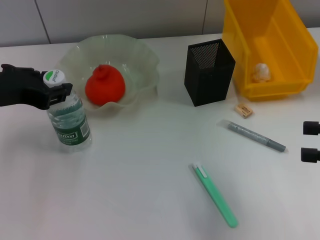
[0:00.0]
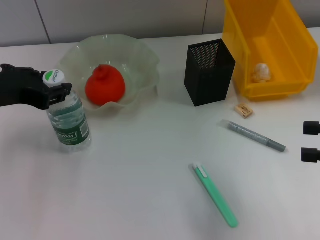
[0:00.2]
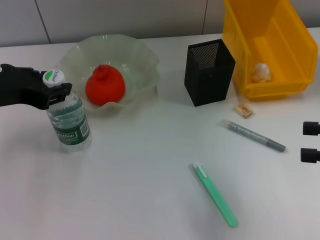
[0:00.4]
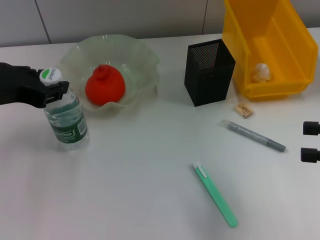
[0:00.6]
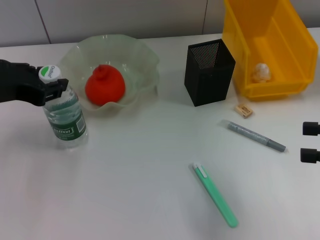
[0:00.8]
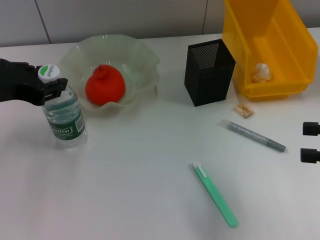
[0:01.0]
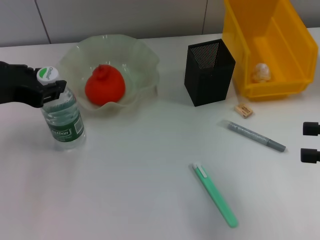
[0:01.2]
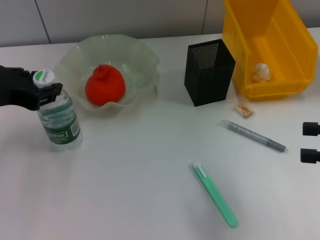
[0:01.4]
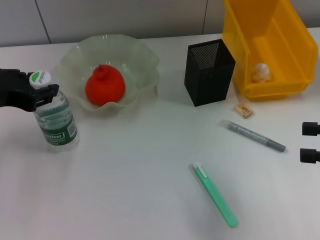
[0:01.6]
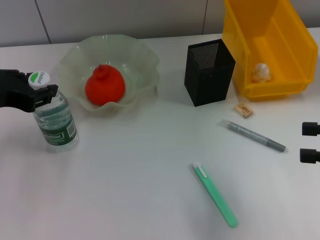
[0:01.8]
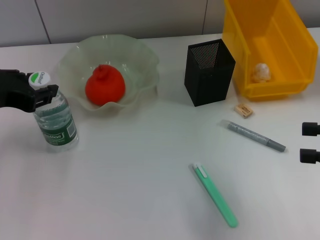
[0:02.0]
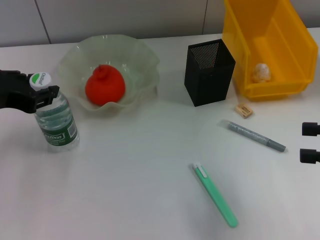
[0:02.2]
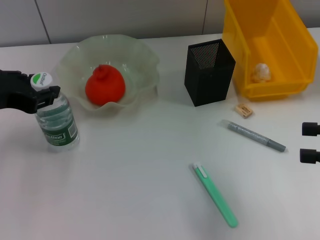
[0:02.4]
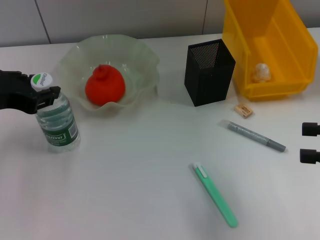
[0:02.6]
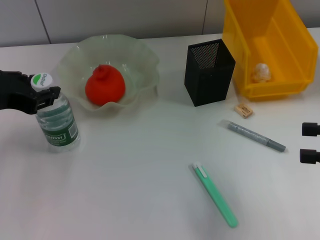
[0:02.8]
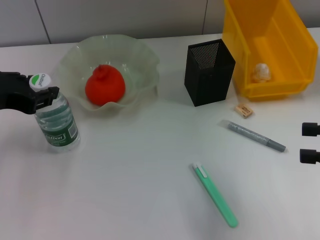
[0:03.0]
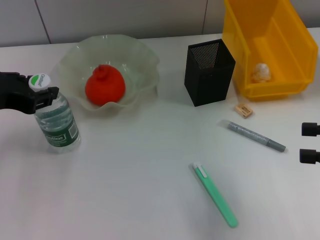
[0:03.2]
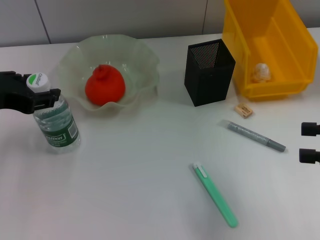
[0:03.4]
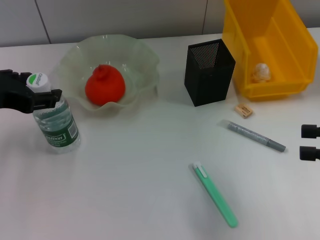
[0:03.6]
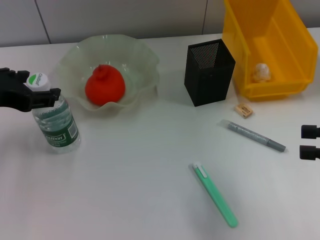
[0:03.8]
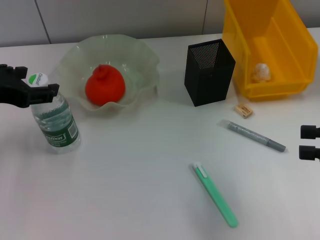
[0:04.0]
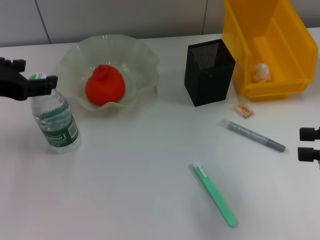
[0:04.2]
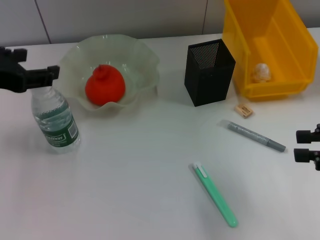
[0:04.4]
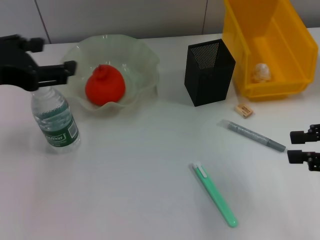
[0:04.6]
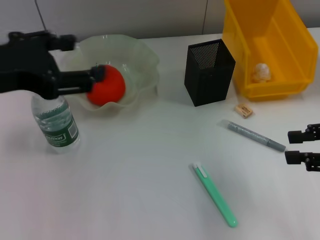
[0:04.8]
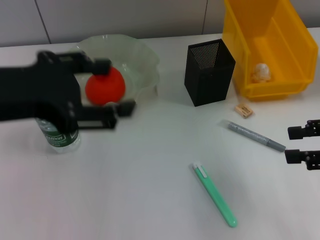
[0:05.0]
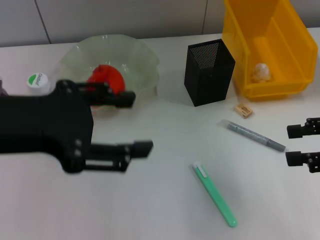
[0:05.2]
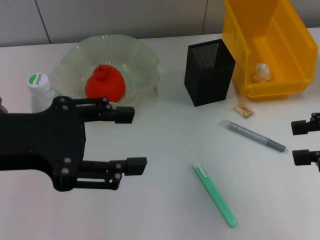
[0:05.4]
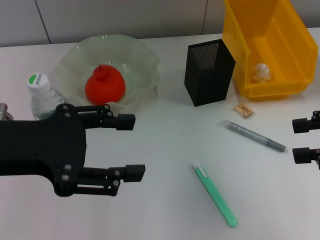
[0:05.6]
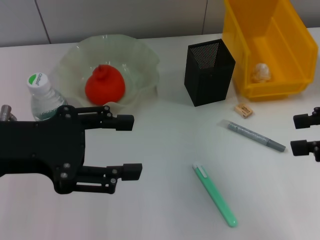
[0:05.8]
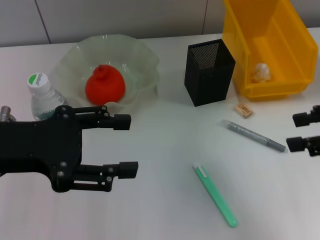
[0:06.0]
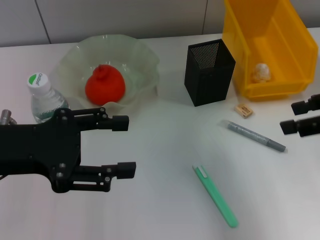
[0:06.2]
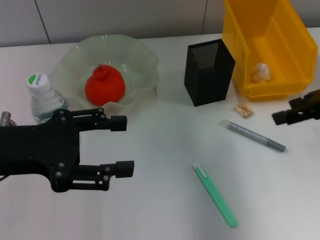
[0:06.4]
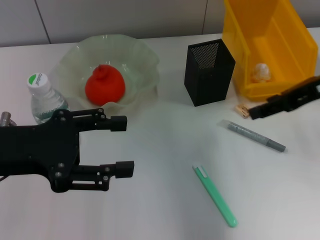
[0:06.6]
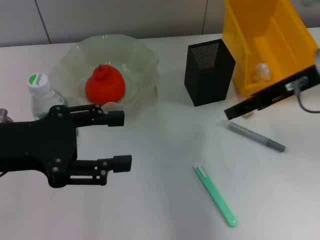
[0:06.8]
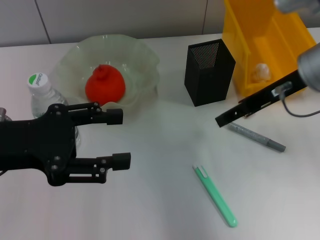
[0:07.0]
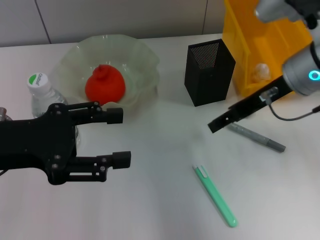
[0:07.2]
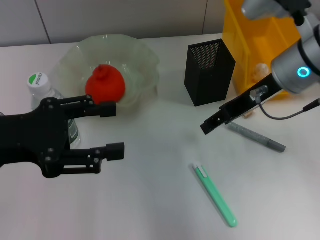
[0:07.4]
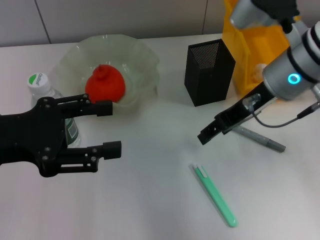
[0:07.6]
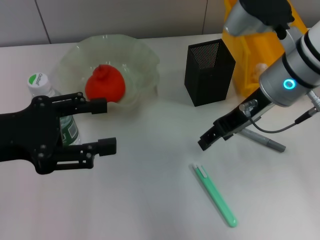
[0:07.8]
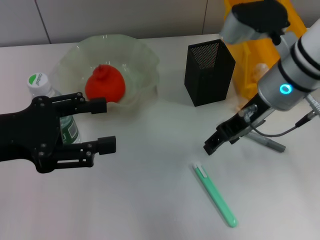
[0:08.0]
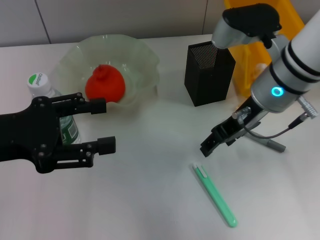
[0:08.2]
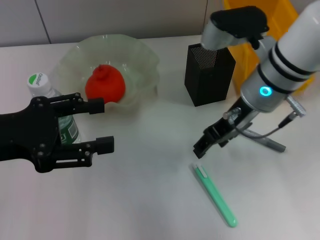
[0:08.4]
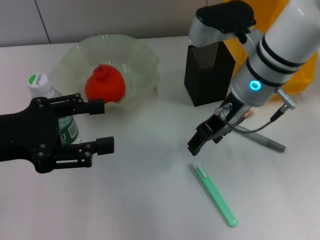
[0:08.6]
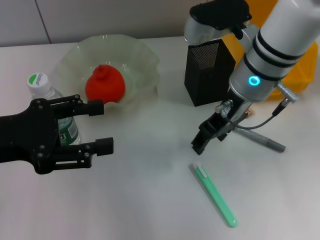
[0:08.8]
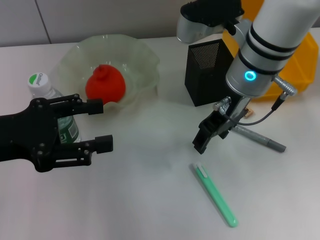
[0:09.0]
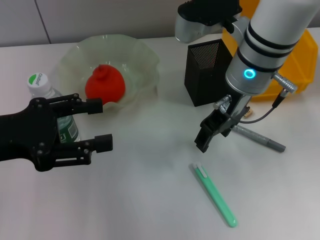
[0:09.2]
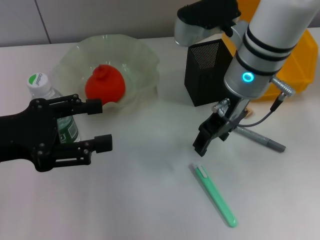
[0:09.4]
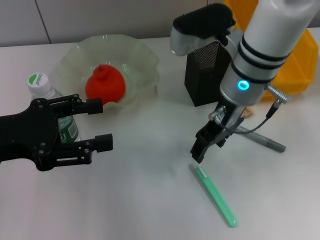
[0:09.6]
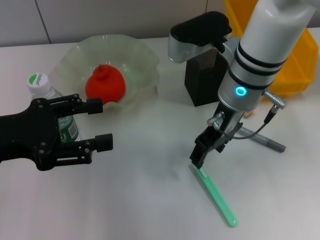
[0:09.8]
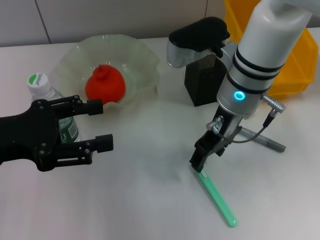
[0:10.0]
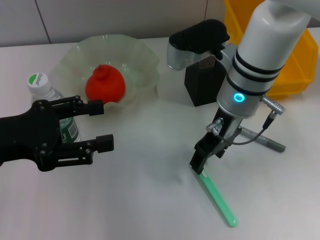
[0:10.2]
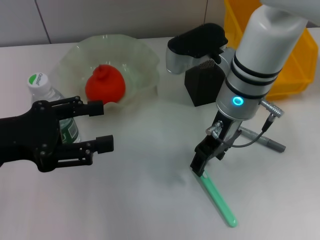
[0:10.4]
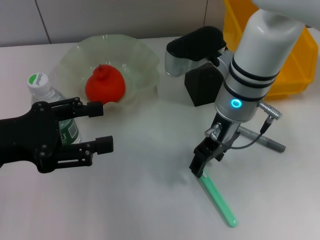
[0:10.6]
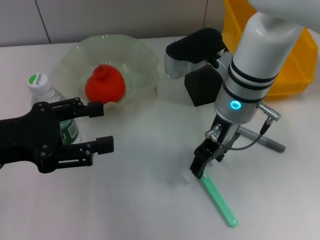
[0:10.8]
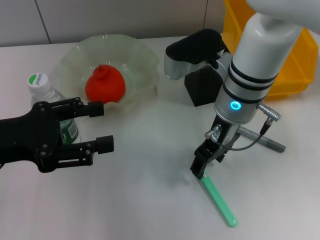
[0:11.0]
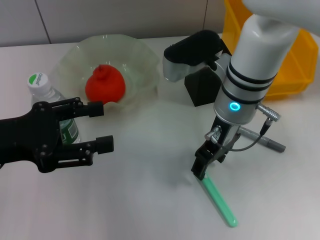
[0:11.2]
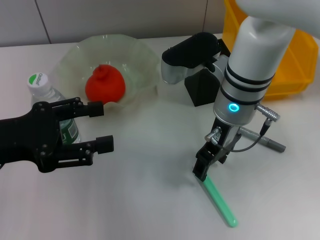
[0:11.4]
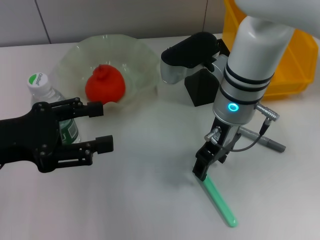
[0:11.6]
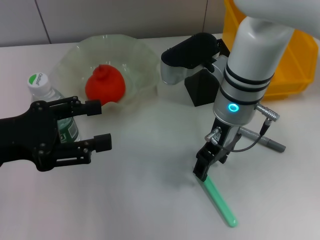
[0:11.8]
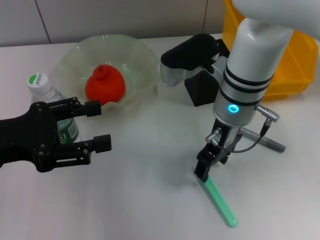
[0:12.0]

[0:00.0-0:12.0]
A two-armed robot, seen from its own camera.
Step, 0:00.0 to 0:03.6: Place the water bottle on the table with the left hand.
0:00.0 to 0:01.6: The two grippers keep their place.
0:01.6 to 0:03.0: Neither gripper changes place.
0:03.0 to 0:04.4: The left gripper opens its fingers.
0:04.4 to 0:06.0: The right gripper travels upward by about 5 cm, and opens its fingers.
0:06.0 to 0:07.6: The right gripper is displaced to the left and forward by some 20 cm.
0:07.6 to 0:09.0: The right gripper heads to the left, covering about 5 cm.
0:09.0 to 0:10.4: The grippers stay close to where they were, moving slightly.
0:10.4 to 0:12.0: The two grippers keep their place.

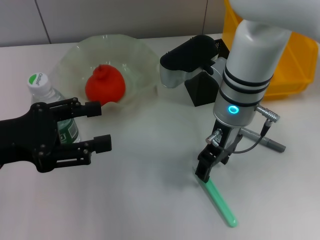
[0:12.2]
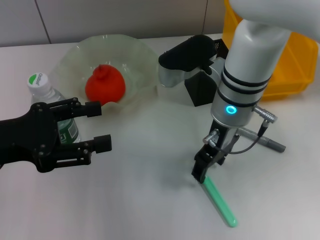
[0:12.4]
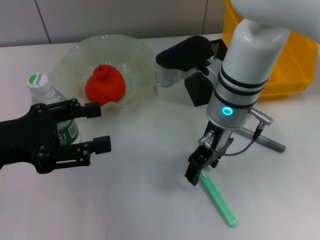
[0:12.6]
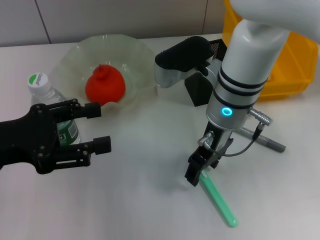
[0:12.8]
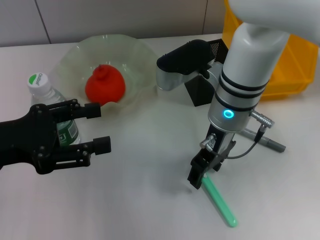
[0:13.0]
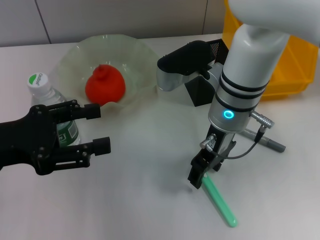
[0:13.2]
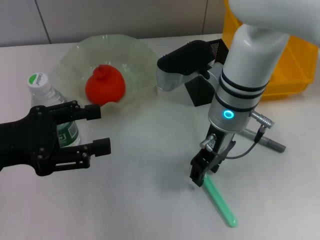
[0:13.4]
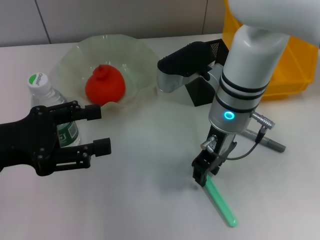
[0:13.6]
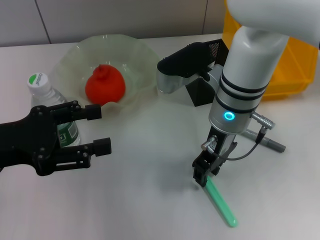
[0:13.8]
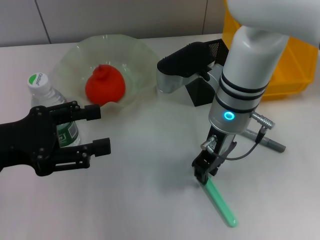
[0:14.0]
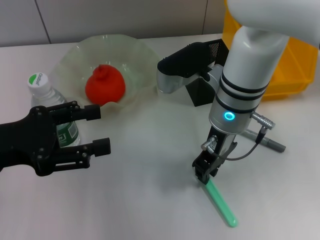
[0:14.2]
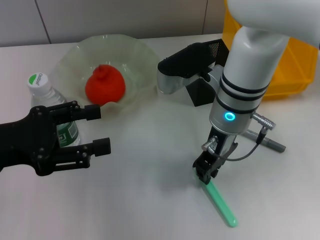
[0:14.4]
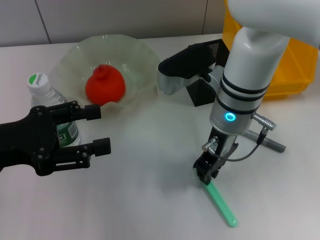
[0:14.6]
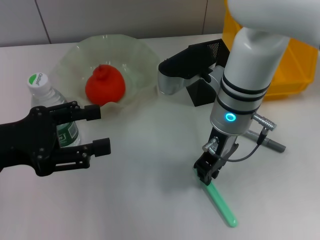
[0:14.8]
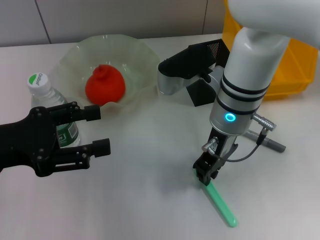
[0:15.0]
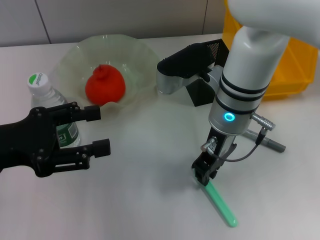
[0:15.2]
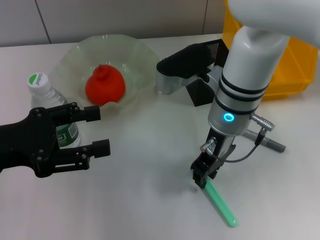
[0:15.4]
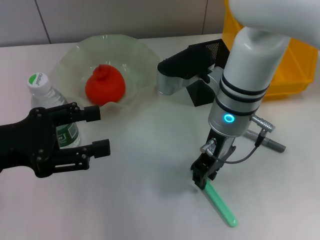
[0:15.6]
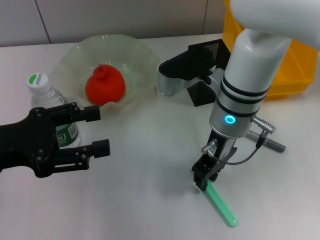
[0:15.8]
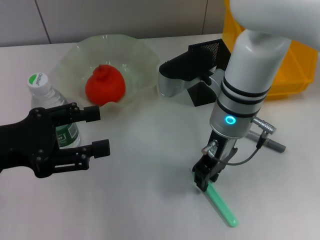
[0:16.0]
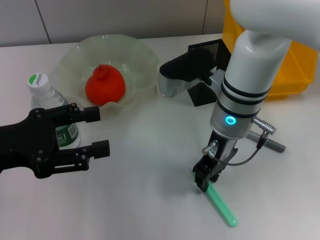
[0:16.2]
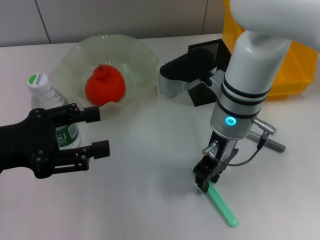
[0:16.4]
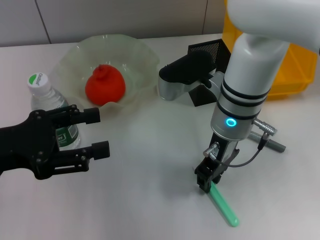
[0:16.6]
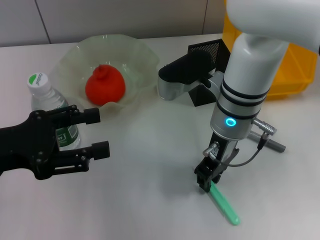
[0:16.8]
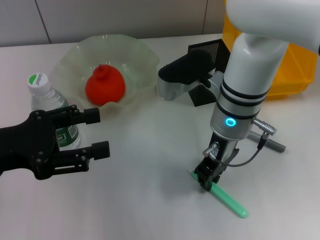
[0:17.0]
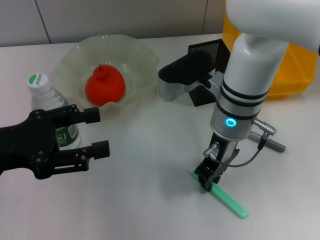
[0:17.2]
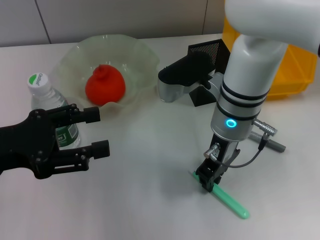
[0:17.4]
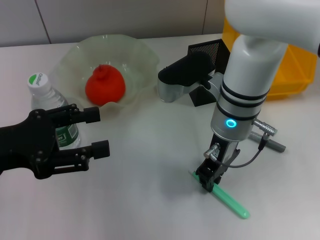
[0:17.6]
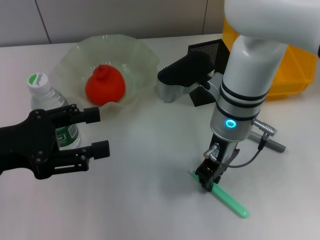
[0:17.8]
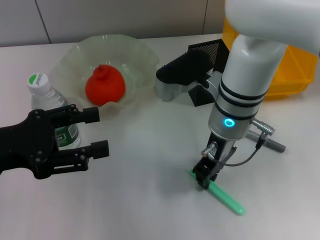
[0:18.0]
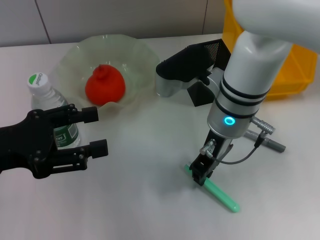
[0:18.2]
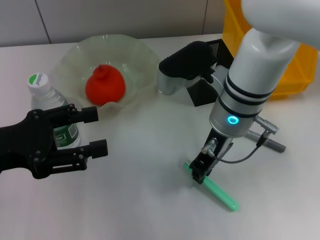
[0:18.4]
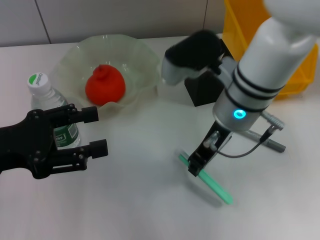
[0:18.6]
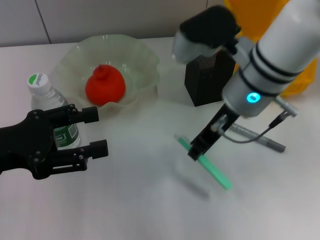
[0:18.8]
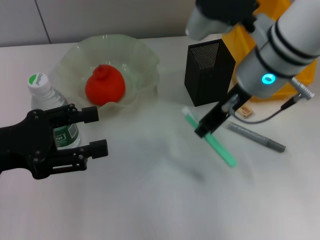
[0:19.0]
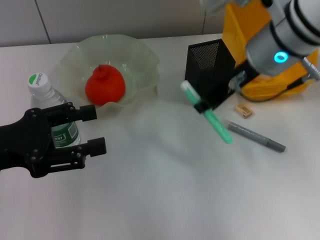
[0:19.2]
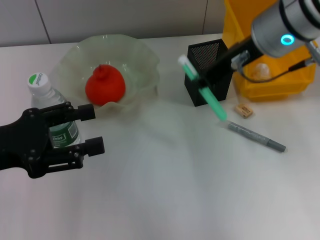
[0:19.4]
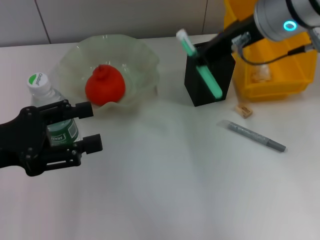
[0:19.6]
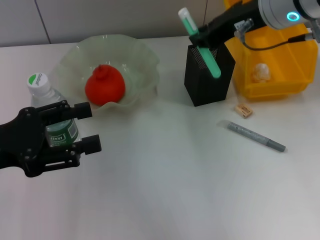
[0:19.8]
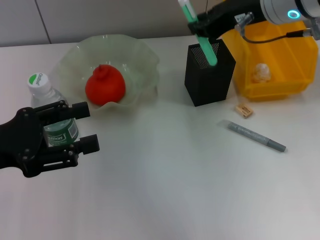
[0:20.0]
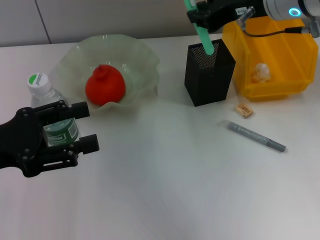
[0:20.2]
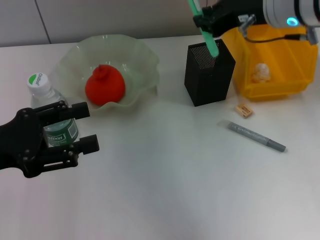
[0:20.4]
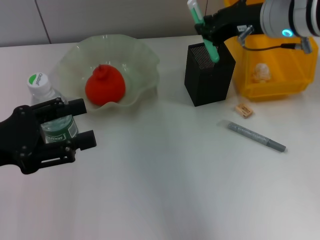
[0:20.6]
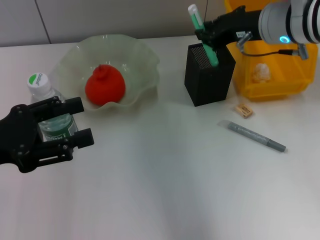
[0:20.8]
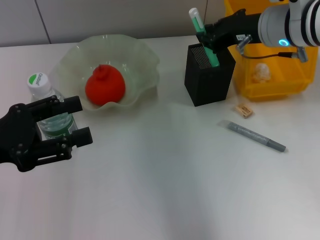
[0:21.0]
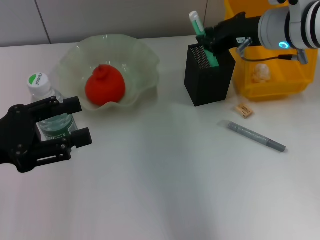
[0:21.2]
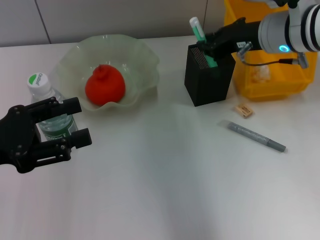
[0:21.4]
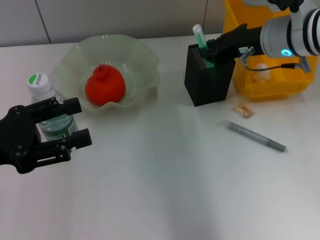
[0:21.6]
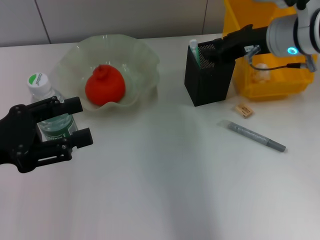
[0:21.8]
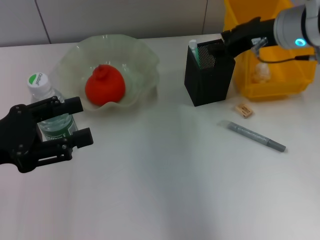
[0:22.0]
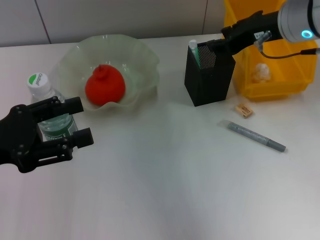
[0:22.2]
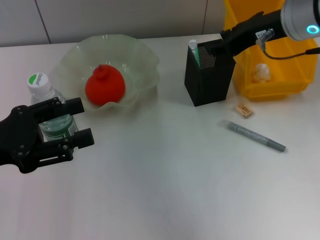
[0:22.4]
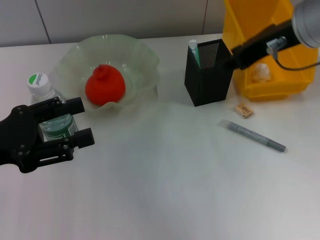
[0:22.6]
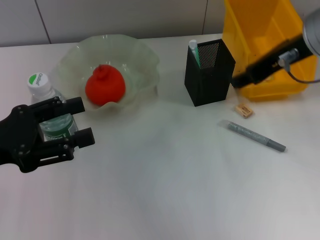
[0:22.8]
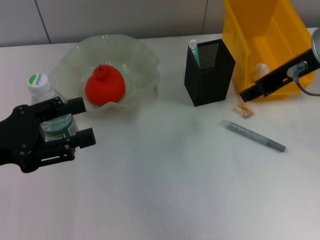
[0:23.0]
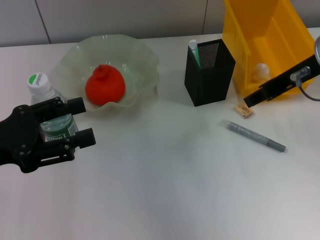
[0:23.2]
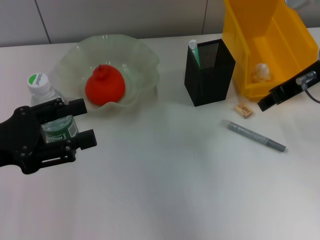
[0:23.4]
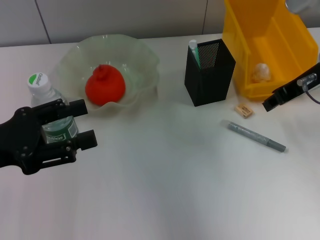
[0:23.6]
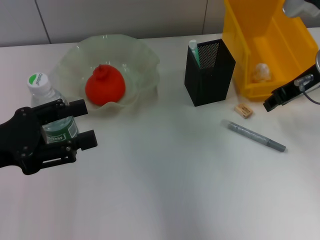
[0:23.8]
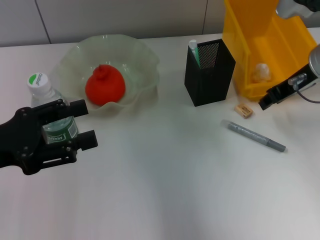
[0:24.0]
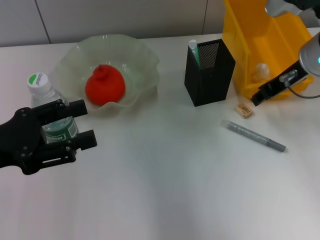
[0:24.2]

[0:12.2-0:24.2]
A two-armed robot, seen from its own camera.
Step, 0:12.2 to 0:17.2: Grab the blue utility knife with the right hand.
Step, 0:17.4 to 0:22.0: Place the blue utility knife into the pen holder with the right hand.
0:12.2 to 0:13.8: The right gripper closes its fingers.
0:13.8 to 0:15.2: The right gripper closes.
0:15.2 to 0:18.2: Neither gripper changes place.
0:18.2 to 0:19.8: The right gripper travels upward and to the right by approximately 15 cm.
0:19.8 to 0:21.2: The right gripper shifts roughly 5 cm downward.
0:21.2 to 0:22.6: The right gripper is displaced upward by roughly 5 cm, and opens up.
0:22.6 to 0:24.2: The right gripper is displaced downward by approximately 5 cm.
